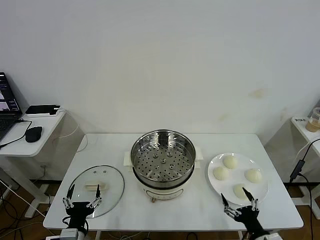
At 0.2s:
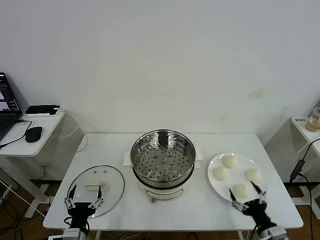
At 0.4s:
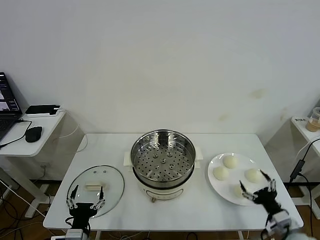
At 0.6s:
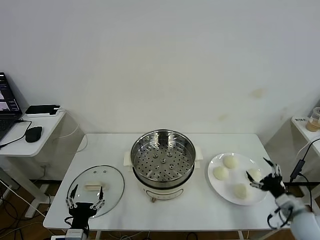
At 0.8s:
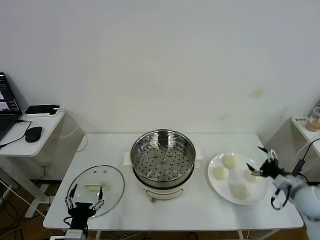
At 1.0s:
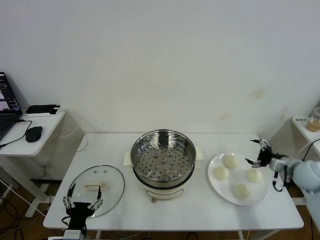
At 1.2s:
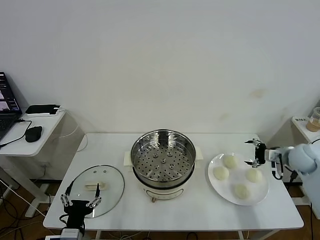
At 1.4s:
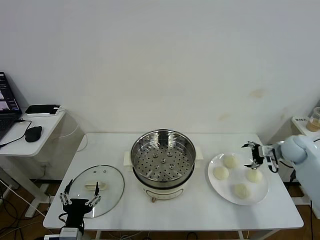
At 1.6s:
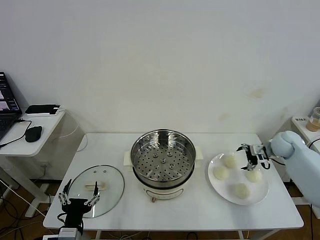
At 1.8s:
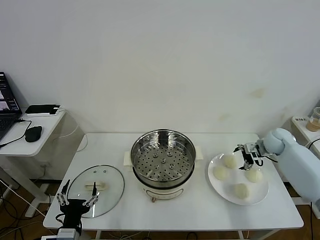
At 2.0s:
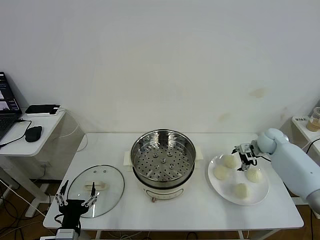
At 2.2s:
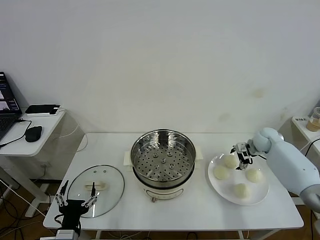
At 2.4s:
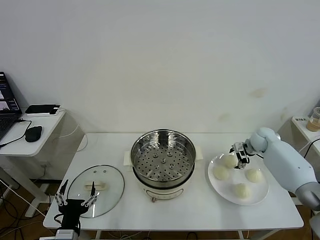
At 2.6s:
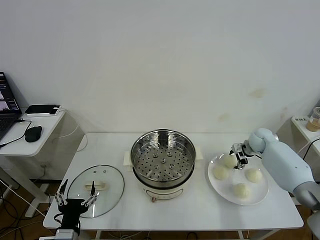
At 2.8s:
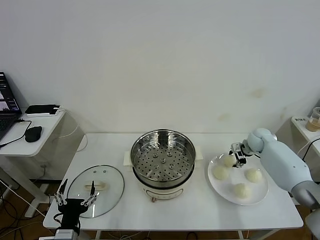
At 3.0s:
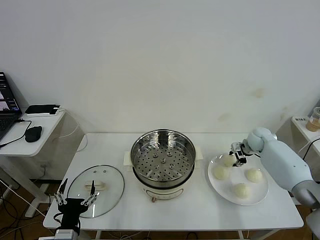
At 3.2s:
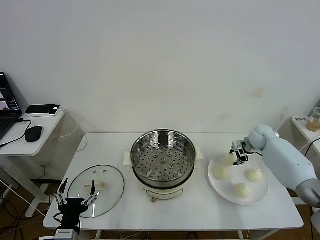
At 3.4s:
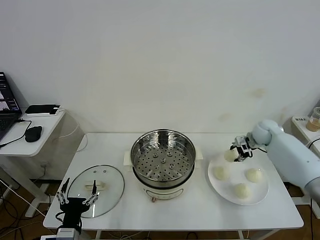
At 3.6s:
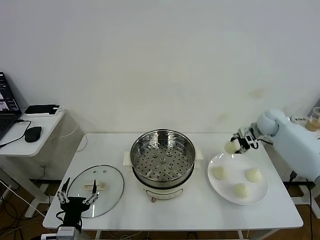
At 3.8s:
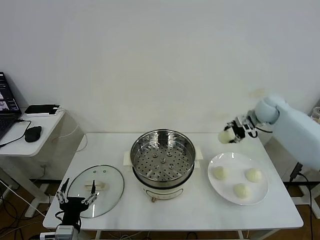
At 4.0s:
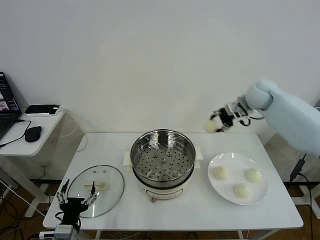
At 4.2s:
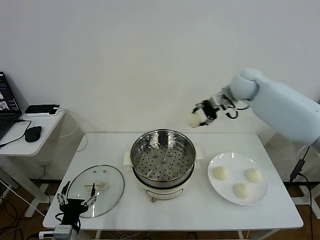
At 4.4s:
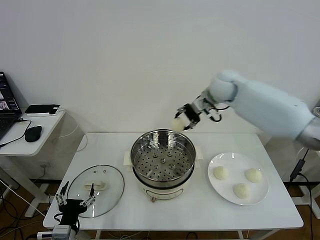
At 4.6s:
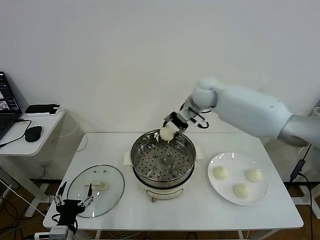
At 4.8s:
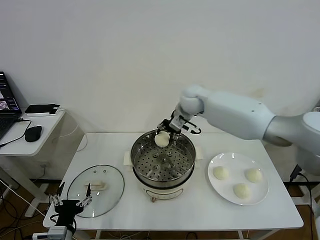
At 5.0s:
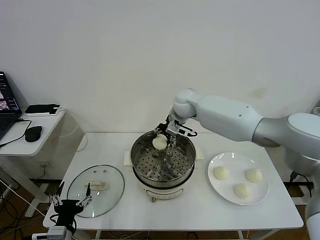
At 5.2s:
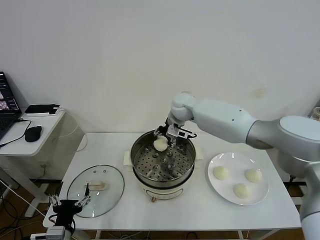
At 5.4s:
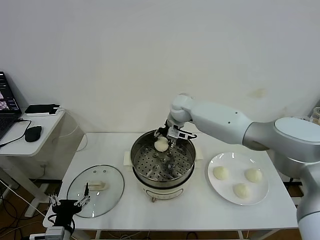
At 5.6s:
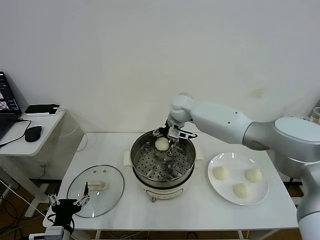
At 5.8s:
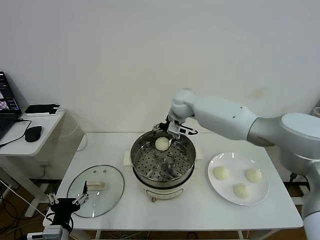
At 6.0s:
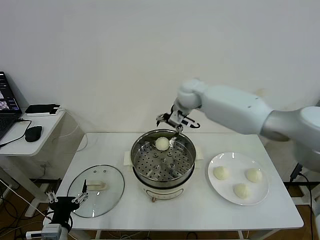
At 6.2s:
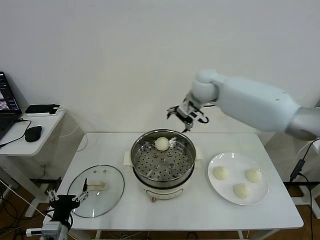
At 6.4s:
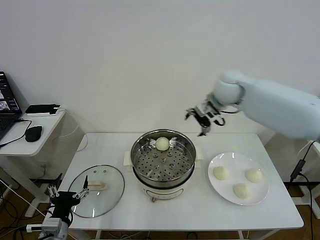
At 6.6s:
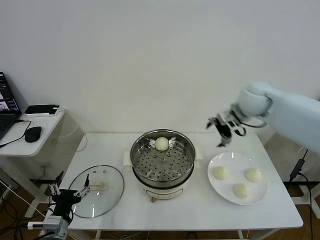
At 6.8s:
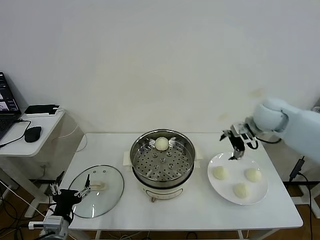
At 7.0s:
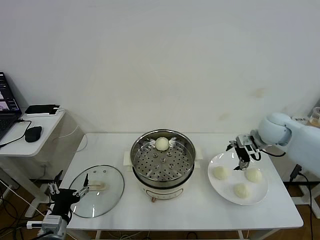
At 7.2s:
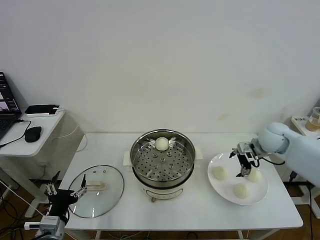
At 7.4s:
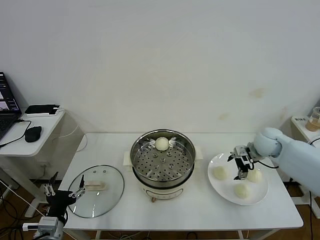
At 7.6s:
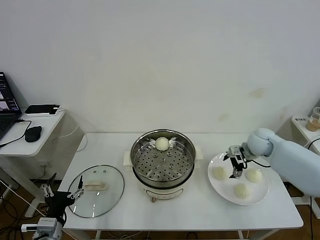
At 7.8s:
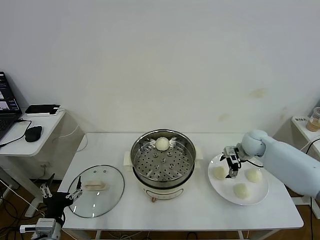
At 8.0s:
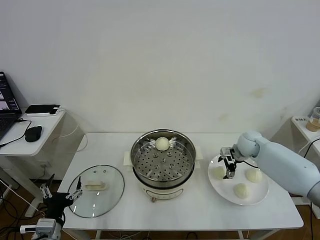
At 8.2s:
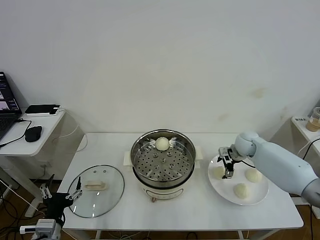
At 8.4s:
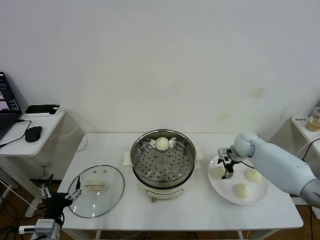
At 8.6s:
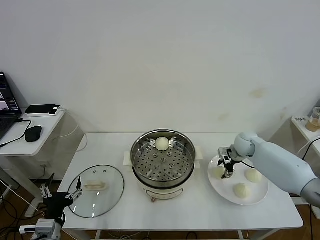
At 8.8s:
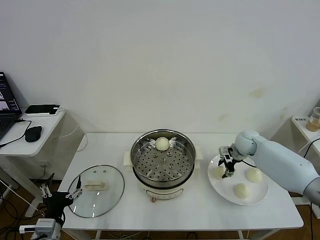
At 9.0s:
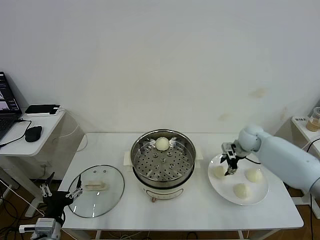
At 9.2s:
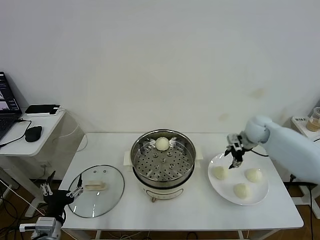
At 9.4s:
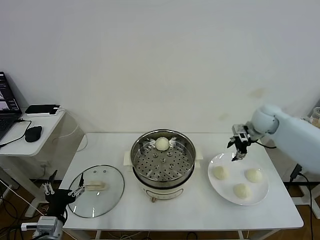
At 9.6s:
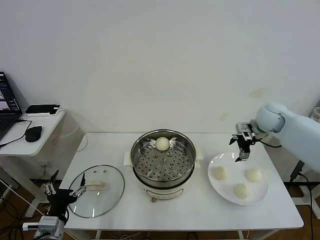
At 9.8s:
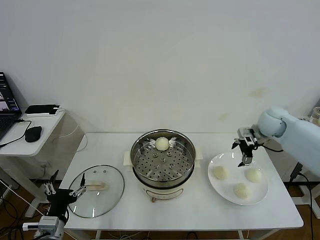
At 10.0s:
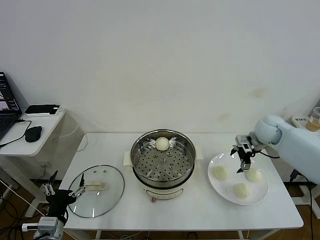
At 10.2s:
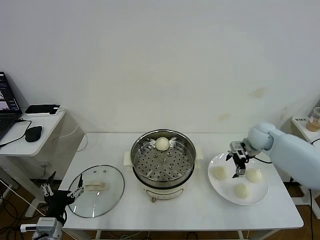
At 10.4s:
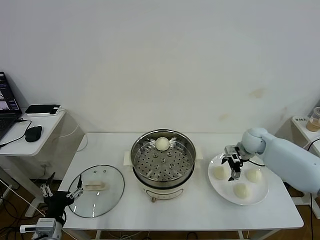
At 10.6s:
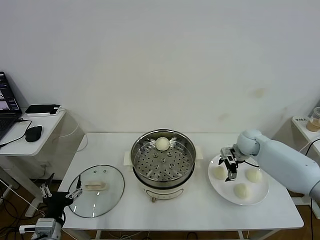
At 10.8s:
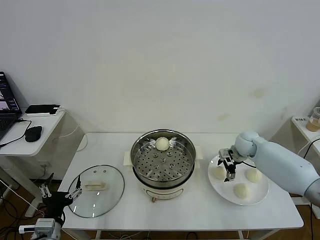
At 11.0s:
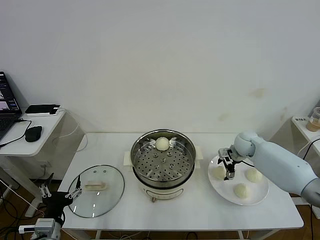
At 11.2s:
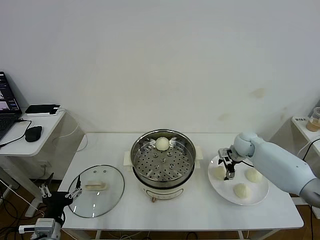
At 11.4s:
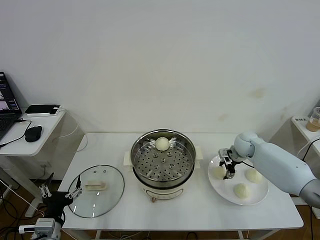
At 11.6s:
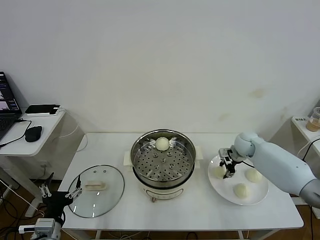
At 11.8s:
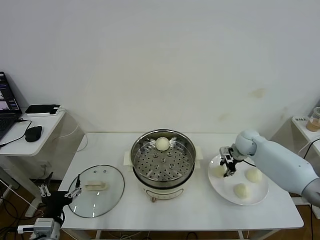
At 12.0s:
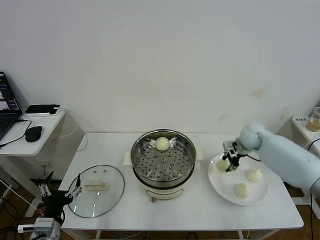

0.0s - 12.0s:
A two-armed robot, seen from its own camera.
Task of the whole recording: take steamed baozi put them in steamer then cover it.
Step, 0.0s - 2.8s: Grasp the baozi in the plate with right gripper.
Step, 3.0s - 5.6s: Place the baozi on the steamer with right gripper.
Step, 5.8s - 11.6s: Grasp the baozi in the plate with right gripper.
1.6s - 3.0s: The right gripper heads forward, covering approximately 5 cm, and closes.
3.0s - 4.4s: The right gripper goes approximately 30 cm upward and to the left.
4.4s - 6.0s: The right gripper heads to the left, covering roughly 5 cm, and opens up.
6.0s - 7.6s: The right gripper is displaced to the right and downward by approximately 30 cm.
7.6s - 9.0s: The right gripper closes.
9.0s - 10.4s: The right gripper moves some 10 cm upward and comes back, and opens up.
10.4s - 12.0s: The right gripper closes.

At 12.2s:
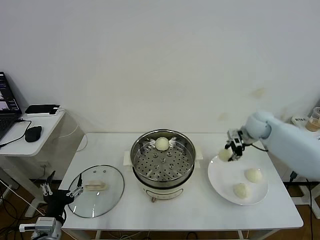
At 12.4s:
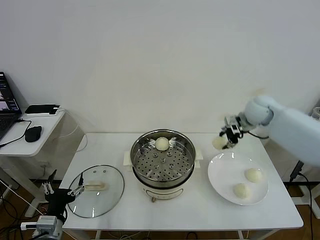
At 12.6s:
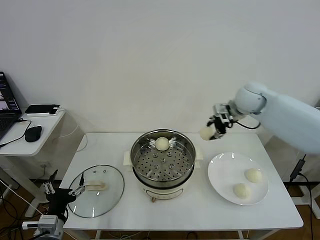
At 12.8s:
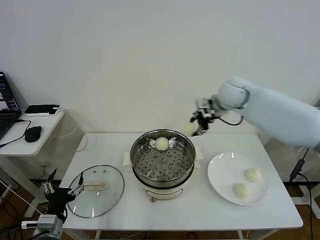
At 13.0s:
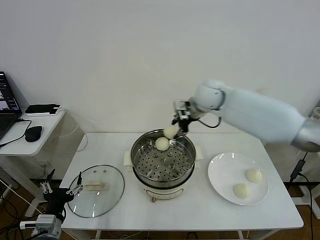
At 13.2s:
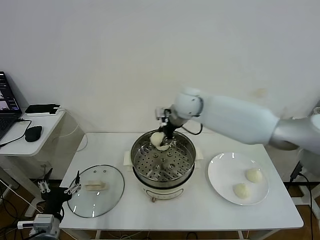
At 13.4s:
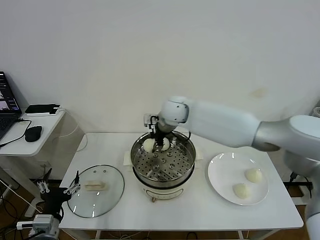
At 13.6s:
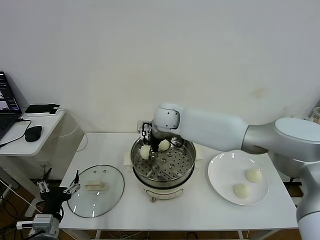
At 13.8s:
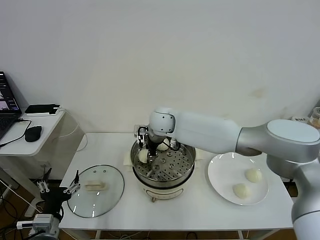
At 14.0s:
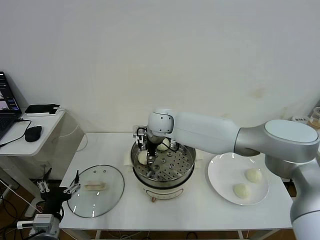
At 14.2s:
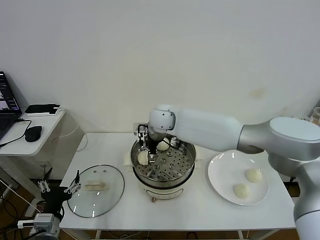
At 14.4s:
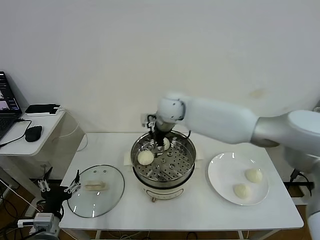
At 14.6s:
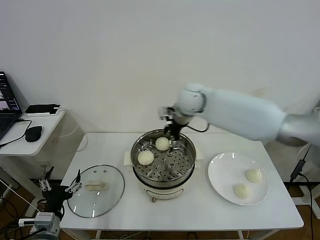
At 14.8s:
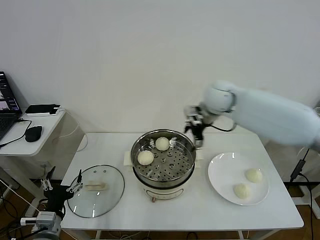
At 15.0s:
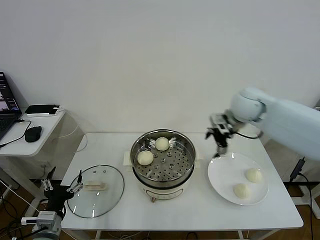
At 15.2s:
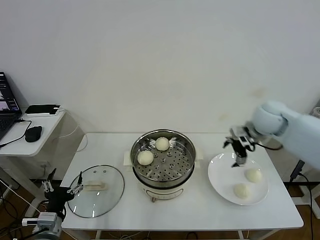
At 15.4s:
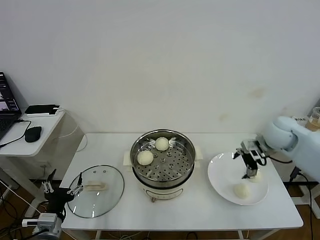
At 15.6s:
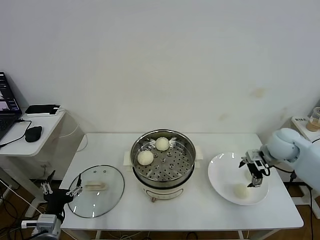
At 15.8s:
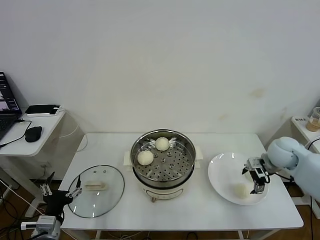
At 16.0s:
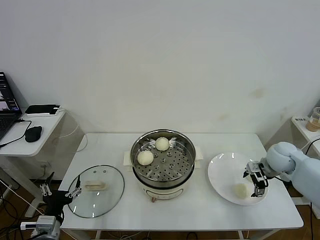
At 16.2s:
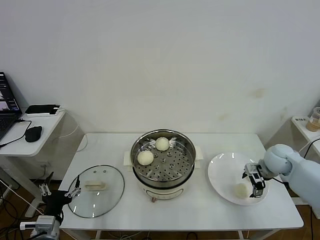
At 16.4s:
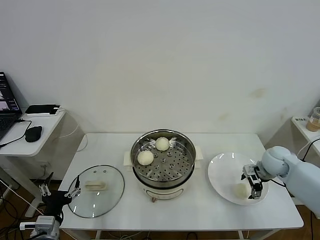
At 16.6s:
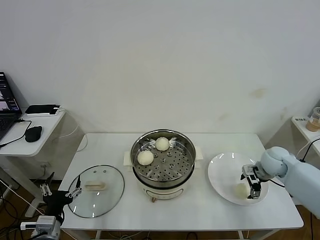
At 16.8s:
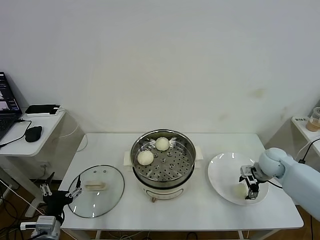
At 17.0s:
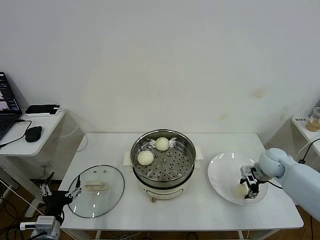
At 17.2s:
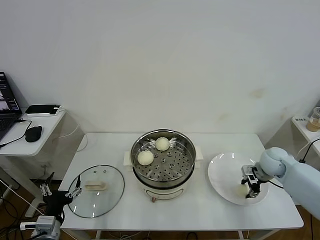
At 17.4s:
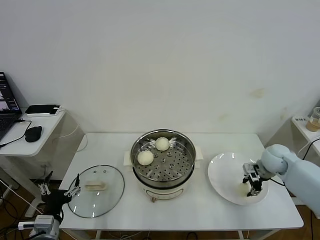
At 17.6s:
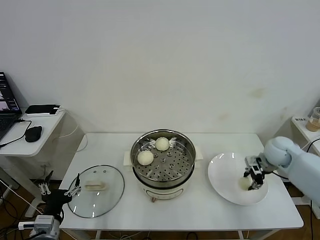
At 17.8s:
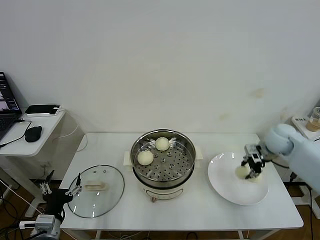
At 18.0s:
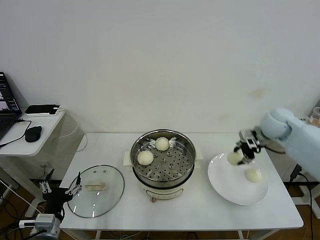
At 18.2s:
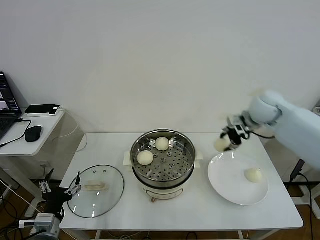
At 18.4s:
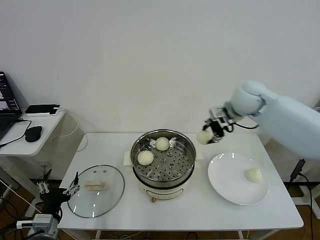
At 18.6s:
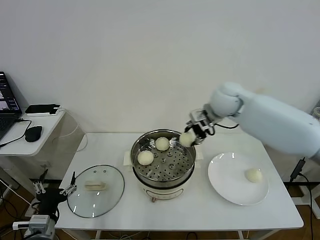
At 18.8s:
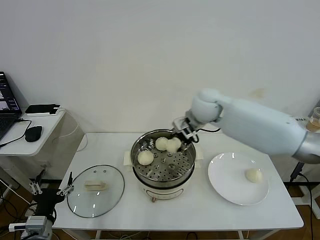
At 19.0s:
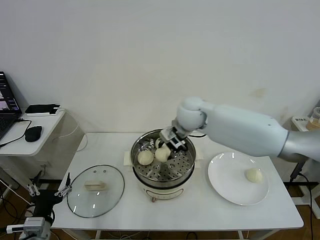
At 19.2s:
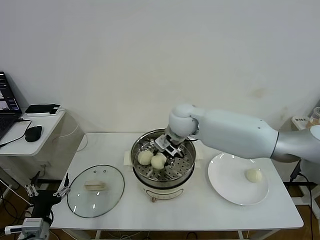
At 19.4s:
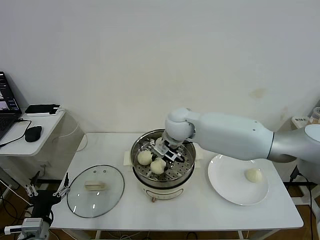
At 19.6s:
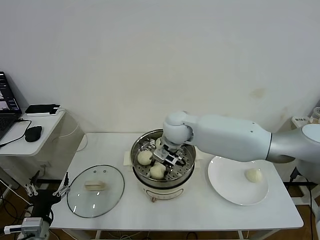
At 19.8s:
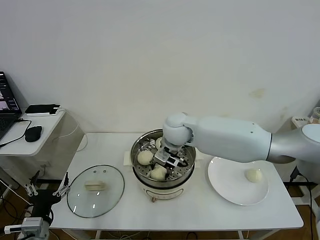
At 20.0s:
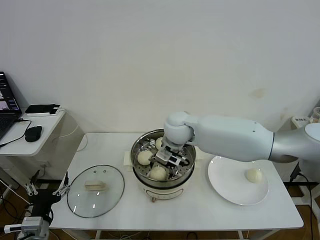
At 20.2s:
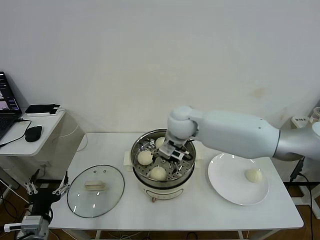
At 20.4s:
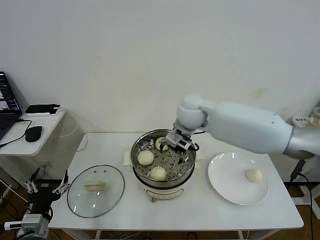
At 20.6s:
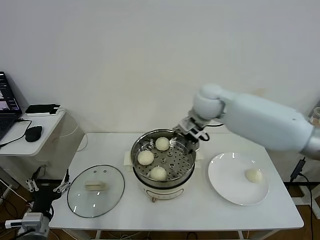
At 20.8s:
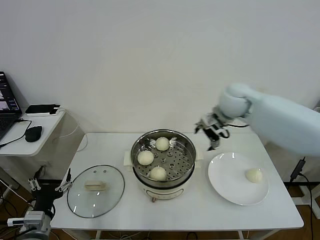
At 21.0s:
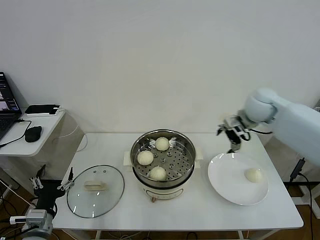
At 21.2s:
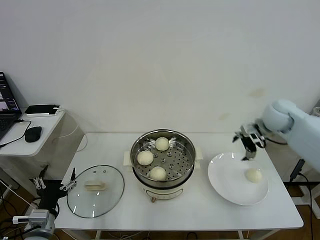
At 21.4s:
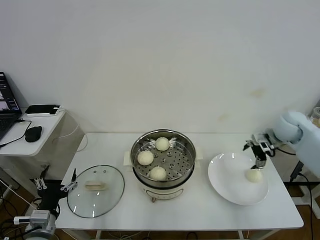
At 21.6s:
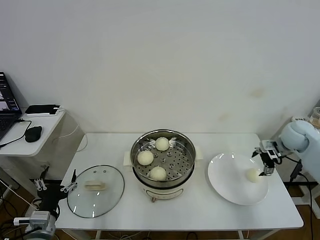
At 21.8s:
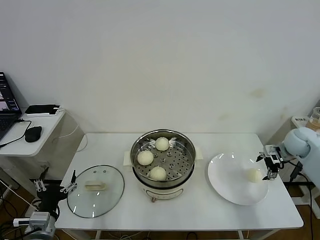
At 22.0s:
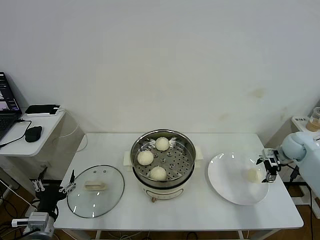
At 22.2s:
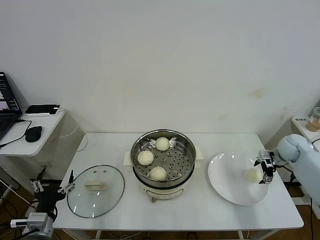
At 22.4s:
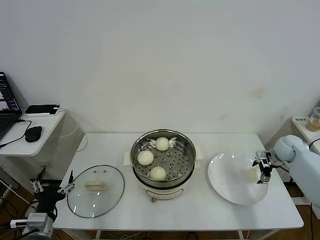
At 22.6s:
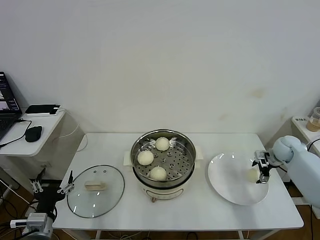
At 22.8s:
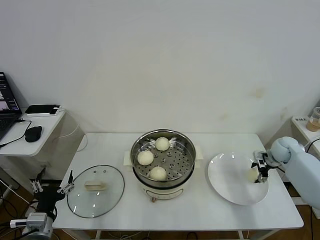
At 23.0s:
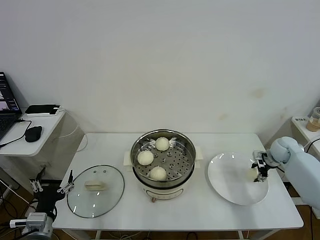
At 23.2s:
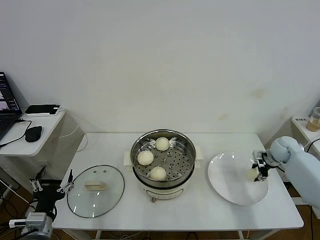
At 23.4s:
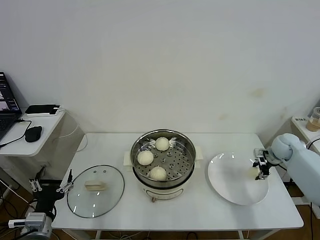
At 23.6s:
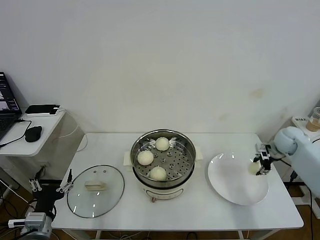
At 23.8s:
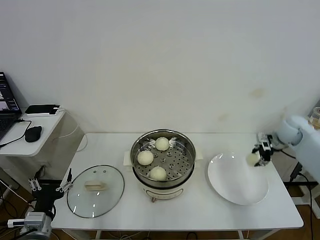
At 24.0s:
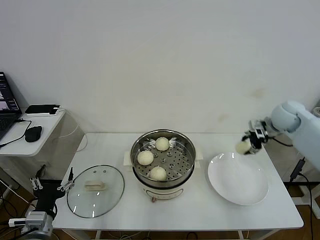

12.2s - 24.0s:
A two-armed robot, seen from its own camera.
Task of the whole recording: take steamed baozi put them in steamer then cover it.
Step, 12.2s - 14.2s: Place the baozi on the steamer with right gripper.
Step, 14.4s - 17.2s: Grasp the baozi in the plate with right gripper.
Step, 17.4s - 20.0s: Place the baozi on the steamer with right gripper.
Step, 20.4s - 23.2s: Grasp the baozi in the plate with right gripper.
12.2s - 13.6s: The right gripper is displaced to the left by some 35 cm.
13.6s - 15.2s: The right gripper moves to the right, roughly 30 cm, and opens its fingers.
15.2s - 16.6s: The right gripper moves downward and to the right, about 20 cm.
16.6s - 18.2s: The right gripper heads upward and to the left, covering some 20 cm, and closes.
18.2s - 19.6s: The right gripper shifts some 25 cm to the left.
19.6s - 21.0s: The right gripper shifts roughly 25 cm to the right, and opens its fingers.
21.0s - 22.6s: The right gripper travels downward and to the right by approximately 25 cm.
22.6s - 24.0s: The right gripper heads upward and to the left, covering approximately 15 cm, and closes its fingers.
